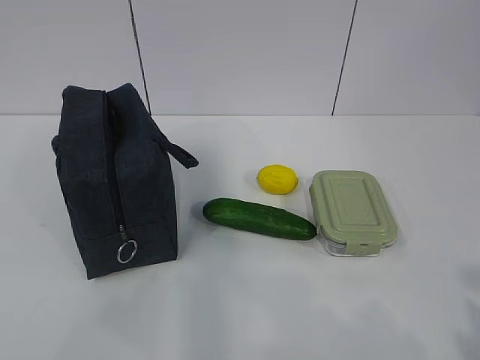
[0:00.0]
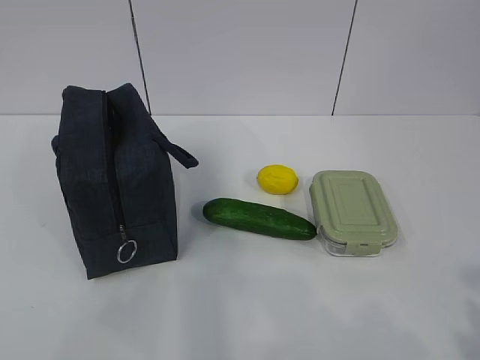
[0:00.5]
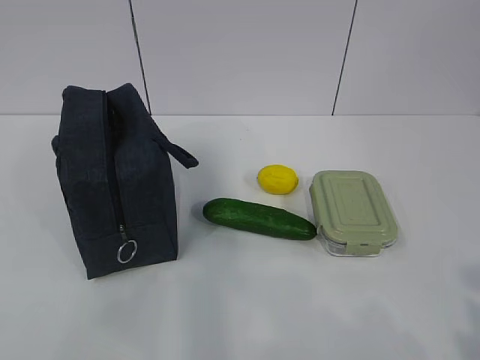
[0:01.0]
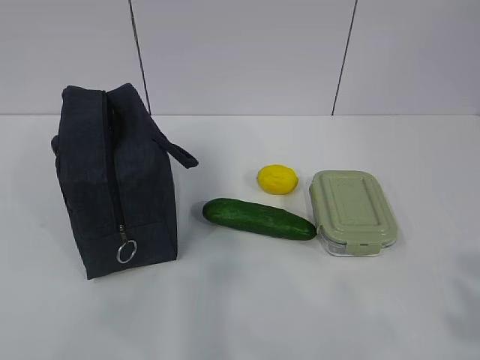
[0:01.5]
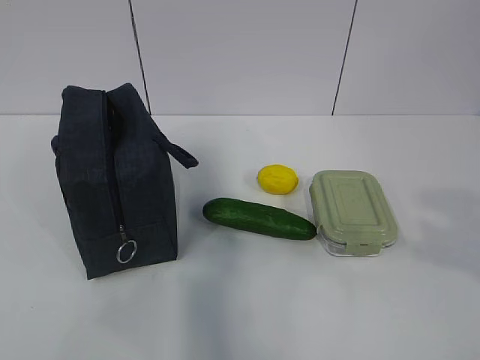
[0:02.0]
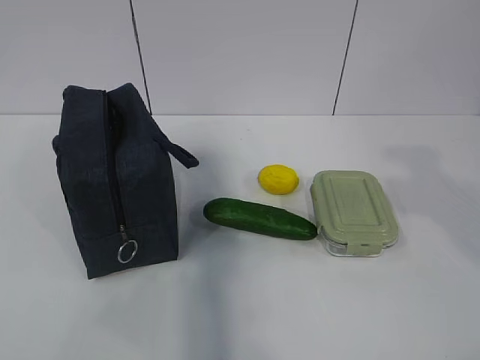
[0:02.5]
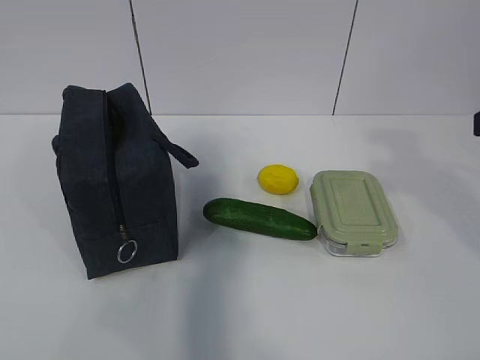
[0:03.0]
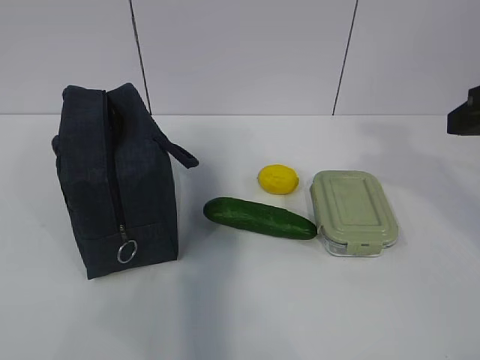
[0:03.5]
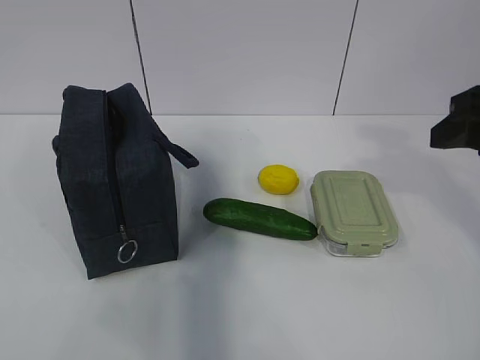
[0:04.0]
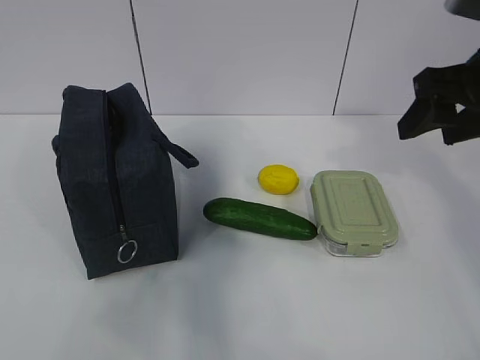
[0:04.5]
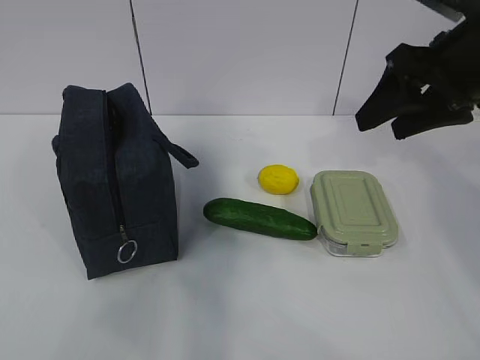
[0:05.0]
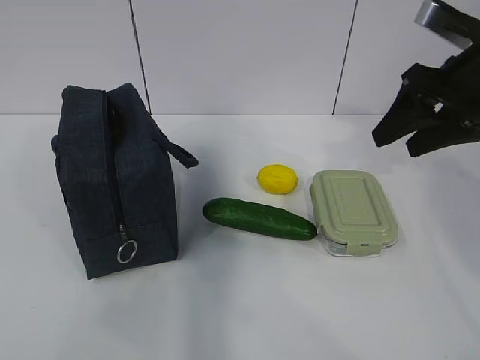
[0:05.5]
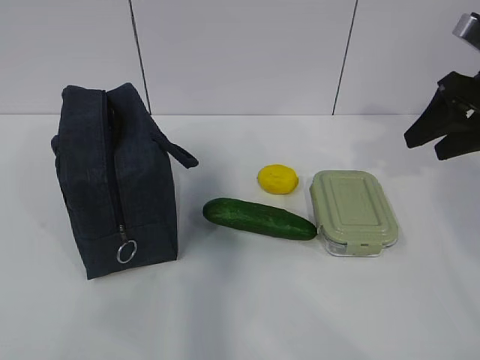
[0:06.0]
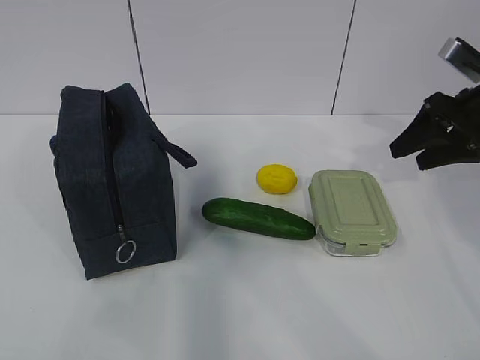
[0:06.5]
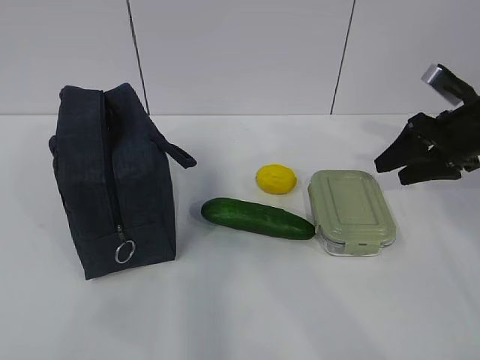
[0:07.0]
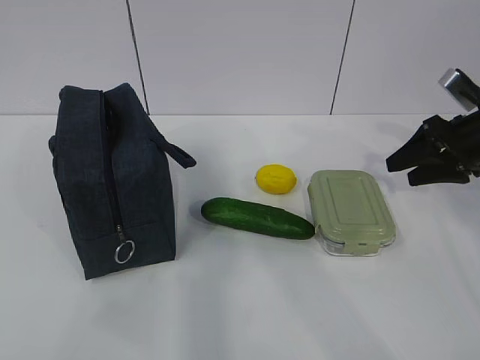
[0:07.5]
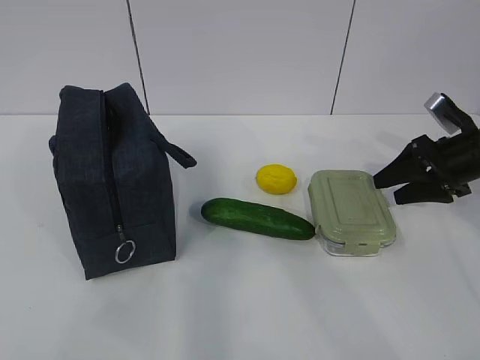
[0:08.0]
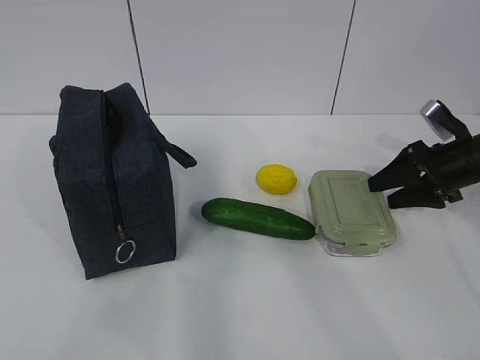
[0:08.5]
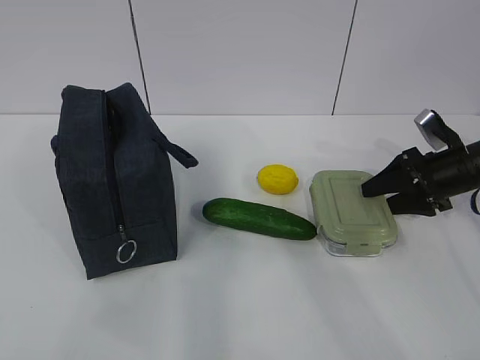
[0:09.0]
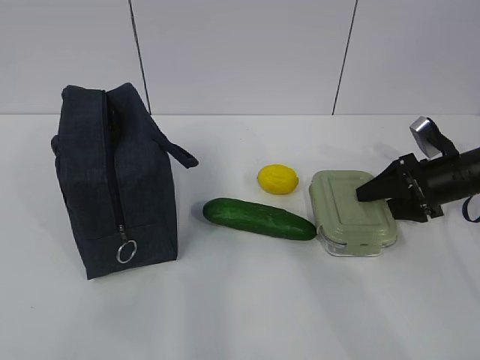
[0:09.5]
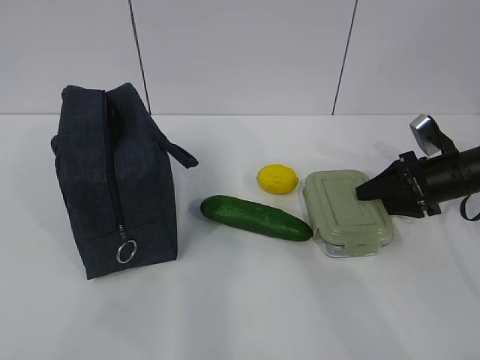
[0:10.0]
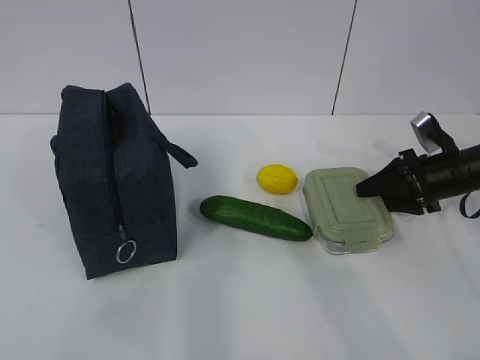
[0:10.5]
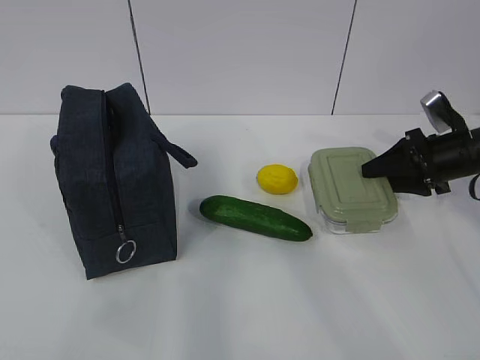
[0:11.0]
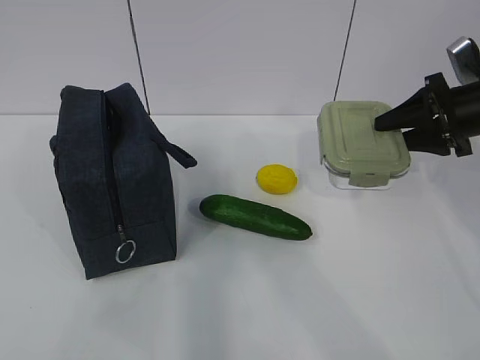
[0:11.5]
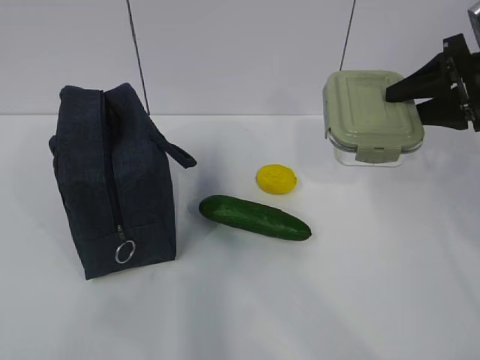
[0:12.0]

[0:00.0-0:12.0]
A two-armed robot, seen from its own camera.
Step, 0.0 to 9.0 s: Grab the lunch box with your right hand.
2.0 to 4.0 s: The right gripper is displaced forward by about 20 cm.
4.0 to 6.0 s: The right gripper shifts roughly 10 cm forward.
6.0 to 8.0 s: The right gripper goes roughly 15 cm downward.
8.0 to 10.0 s: The grippers move only a little.
10.0 to 12.0 s: The right gripper moves upward, approximately 15 cm.

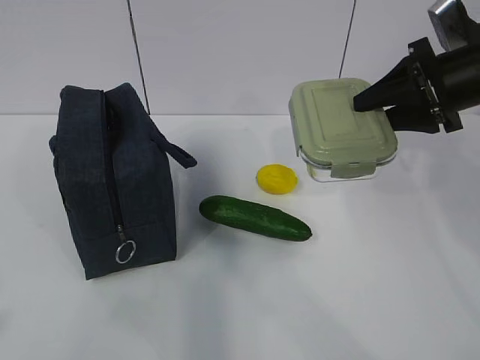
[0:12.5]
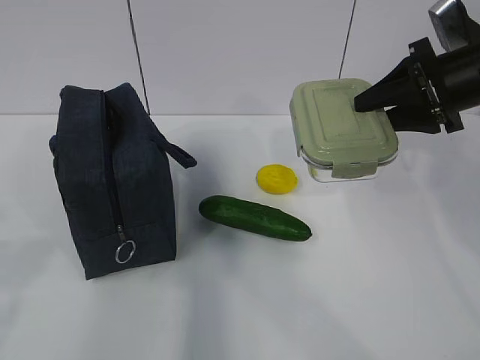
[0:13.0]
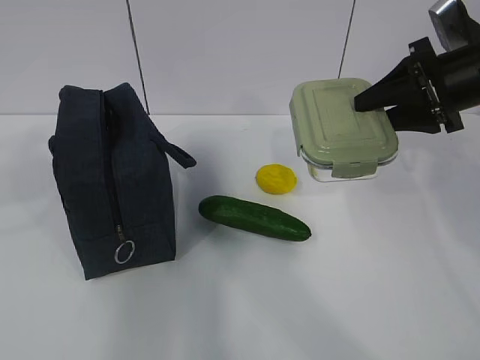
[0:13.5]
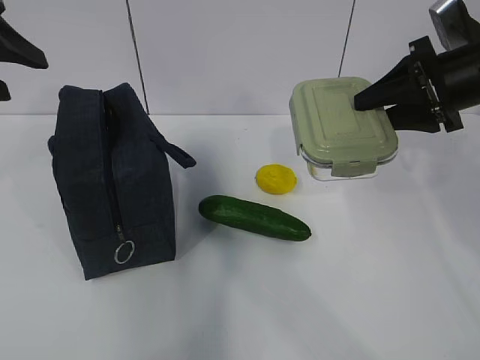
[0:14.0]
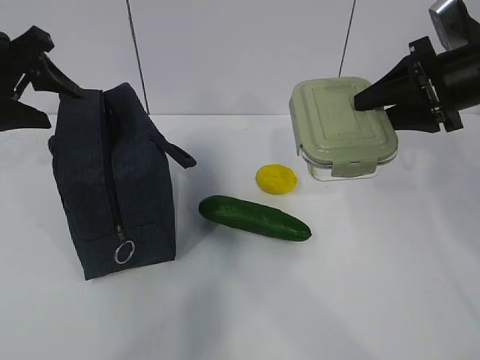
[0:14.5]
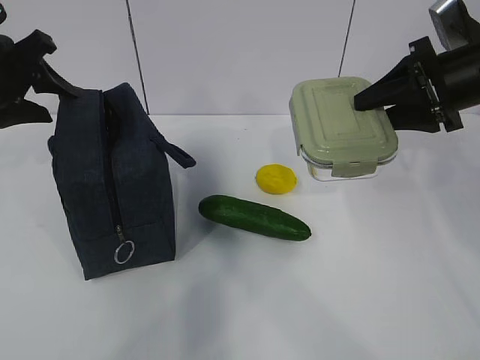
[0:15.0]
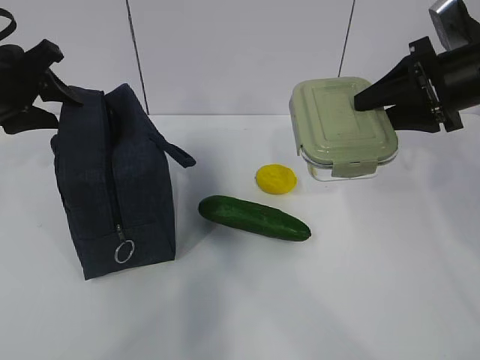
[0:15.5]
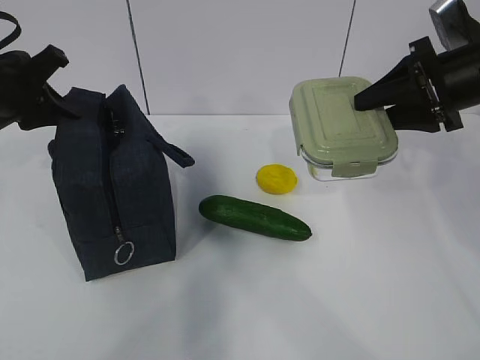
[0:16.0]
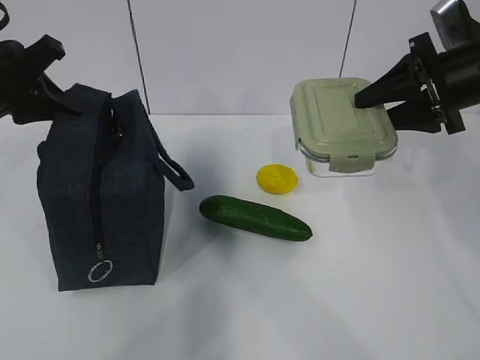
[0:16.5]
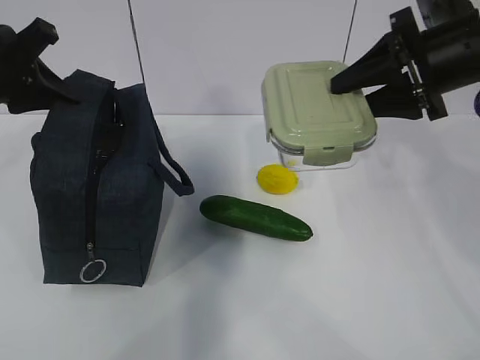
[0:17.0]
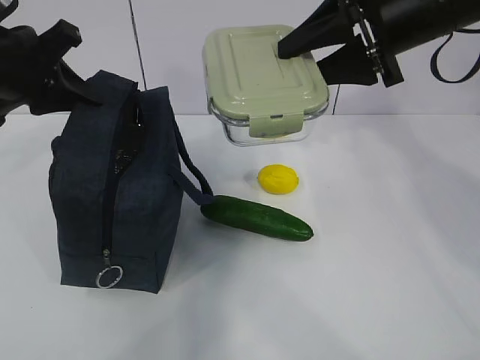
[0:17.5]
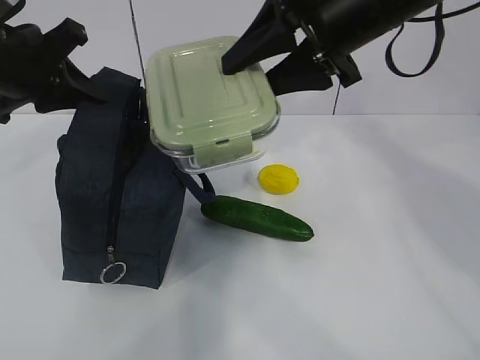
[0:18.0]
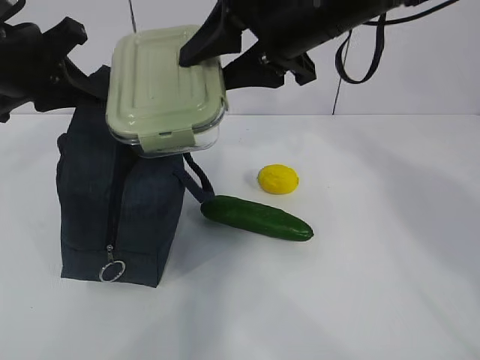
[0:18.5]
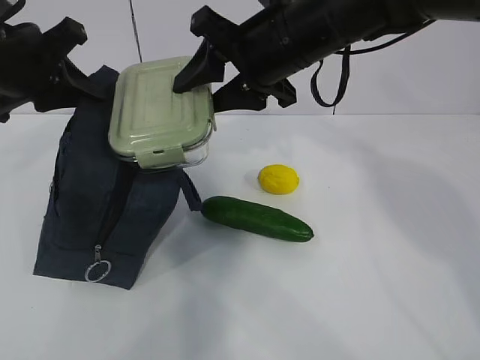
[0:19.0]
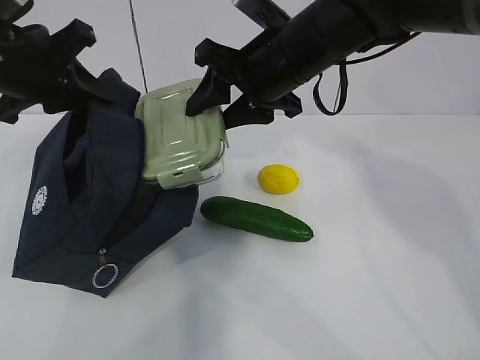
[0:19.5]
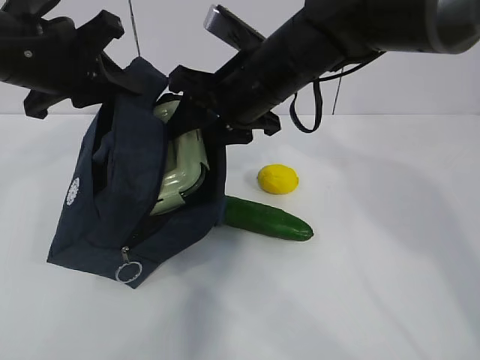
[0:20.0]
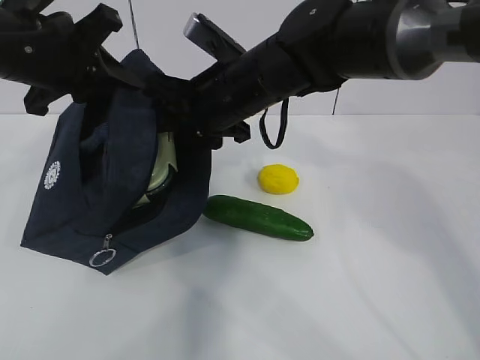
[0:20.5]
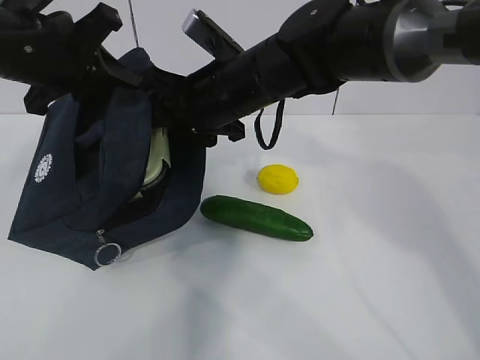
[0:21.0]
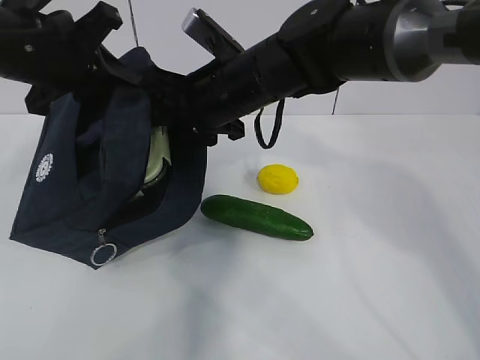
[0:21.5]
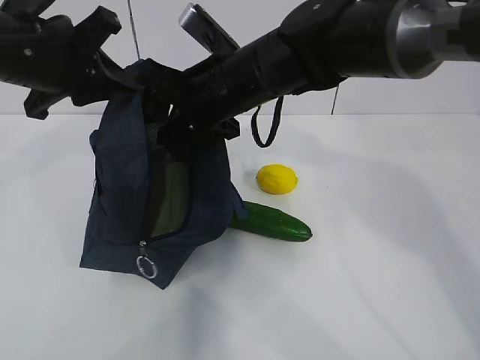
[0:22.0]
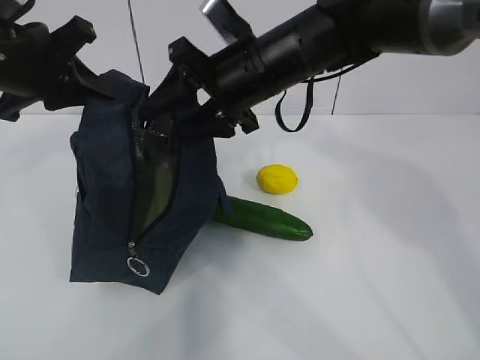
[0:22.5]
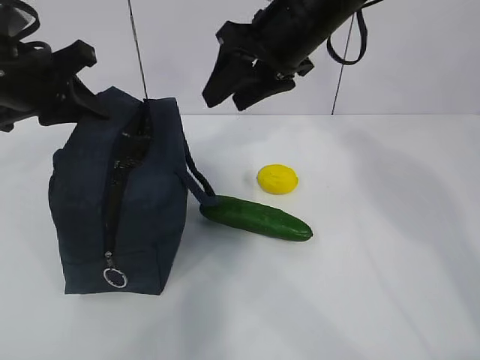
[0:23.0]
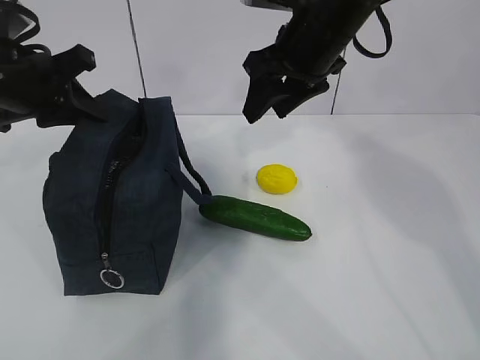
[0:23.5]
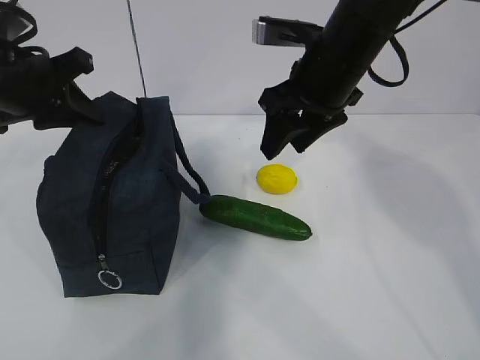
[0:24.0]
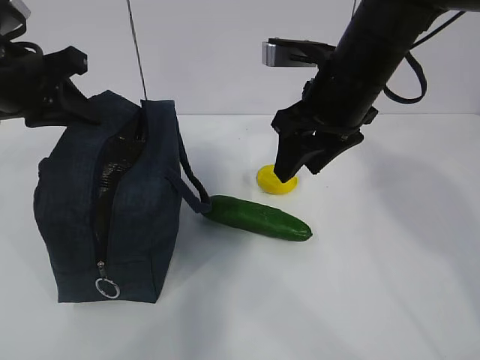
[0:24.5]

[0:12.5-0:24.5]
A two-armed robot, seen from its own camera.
Step, 12.5 to 15.0 s: Grab the lunch bag with your left hand.
Step, 15.5 to 18.0 s: Place it into the bag with your right hand.
Step, 18.5 to 22.5 s: Grab the cucumber with your right hand.
12.5 to 14.5 s: The left gripper shifts some 35 cm forward.
14.5 to 16.5 s: The left gripper closes.
16.5 to 18.5 s: The right gripper heads to the left, covering some 20 cm.
18.5 to 20.5 s: The right gripper is displaced downward and to the left by some 10 cm.
20.5 to 22.5 s: There are only small adjustments of the grippers.
22.5 to 24.5 s: The right gripper shifts about 10 cm to the right.

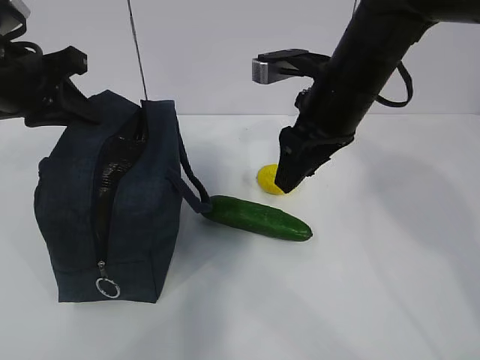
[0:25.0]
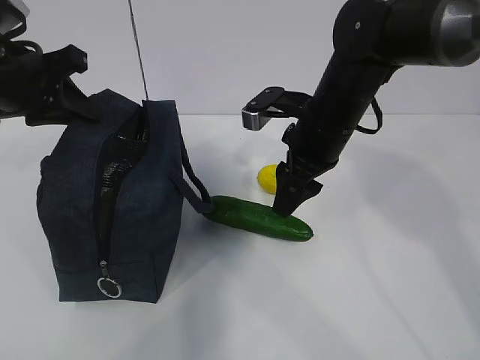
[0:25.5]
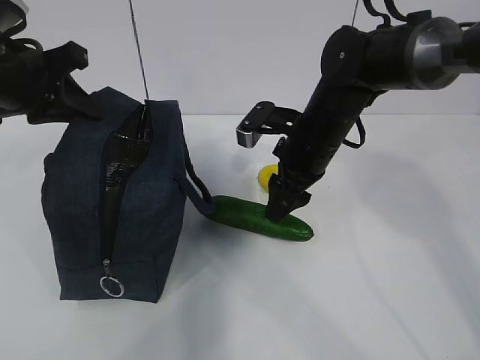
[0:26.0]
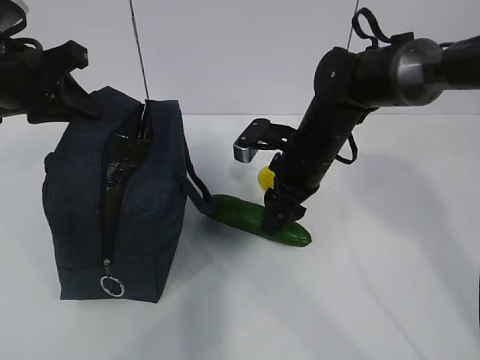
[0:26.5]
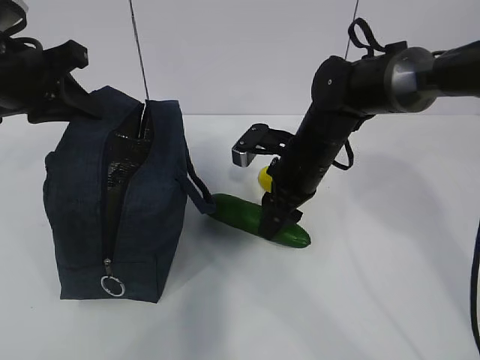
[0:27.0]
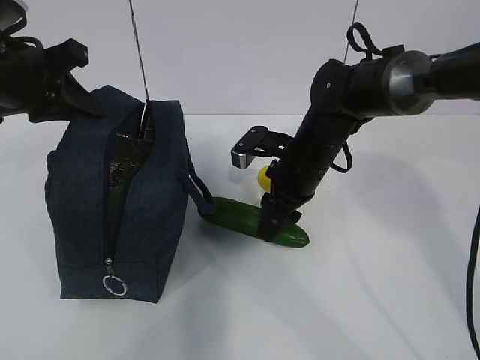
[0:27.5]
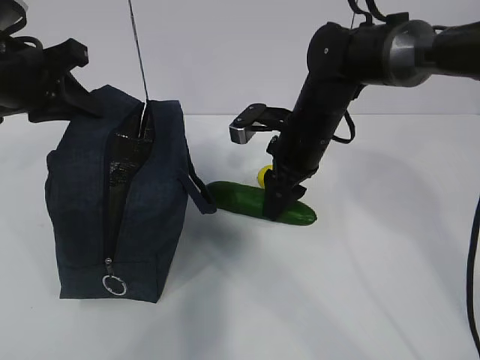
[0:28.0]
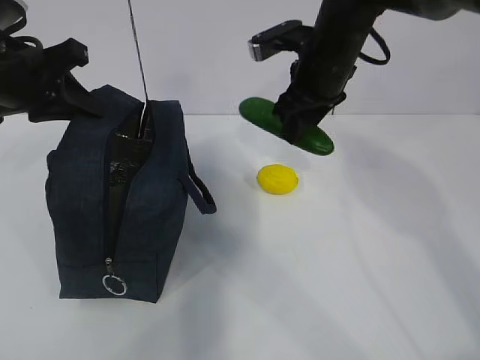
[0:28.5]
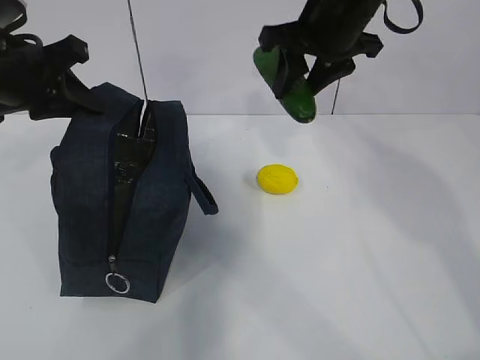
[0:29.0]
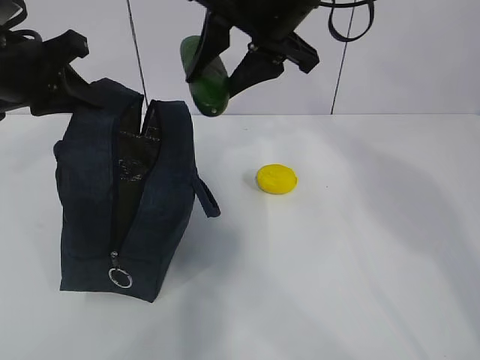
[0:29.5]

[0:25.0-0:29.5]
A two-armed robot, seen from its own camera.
Step, 25.0 to 27.0 s: Place it into the bag with your right hand.
25.0 to 27.0 s: The right gripper shifts approximately 10 cm downward.
27.0 to 29.5 s: The right gripper heads upward, covering roughly 20 cm.
